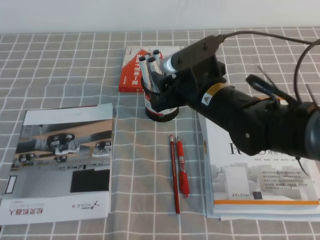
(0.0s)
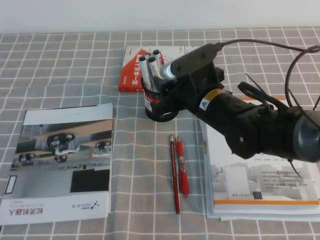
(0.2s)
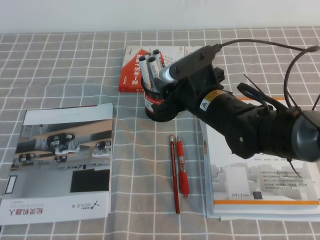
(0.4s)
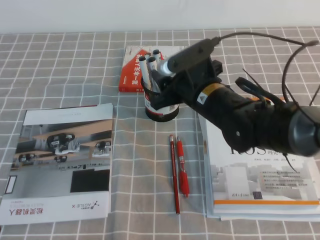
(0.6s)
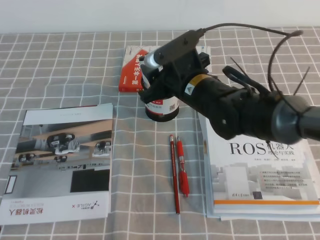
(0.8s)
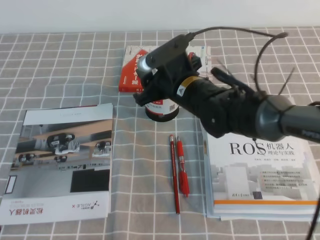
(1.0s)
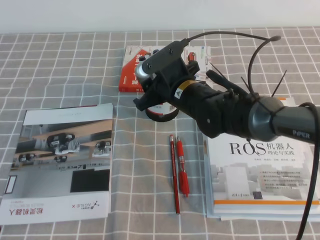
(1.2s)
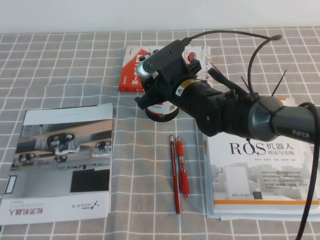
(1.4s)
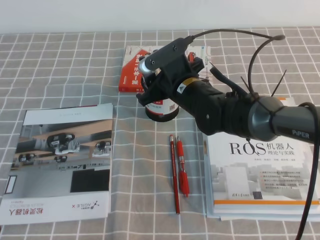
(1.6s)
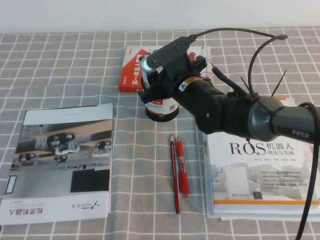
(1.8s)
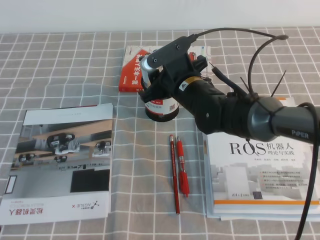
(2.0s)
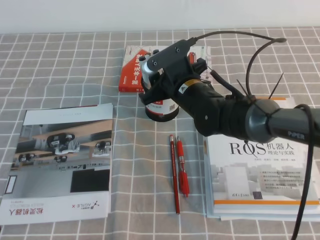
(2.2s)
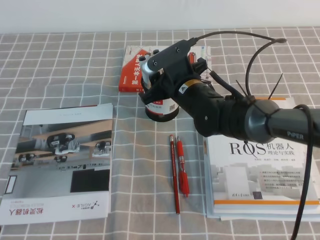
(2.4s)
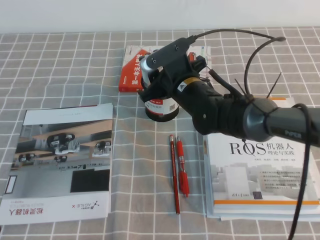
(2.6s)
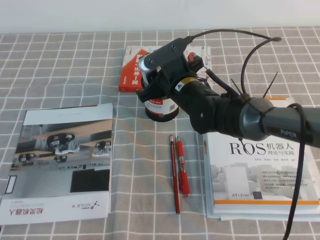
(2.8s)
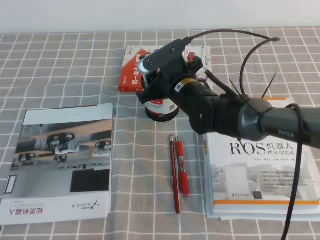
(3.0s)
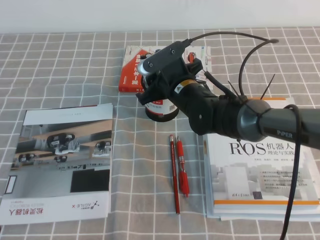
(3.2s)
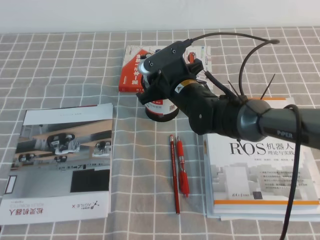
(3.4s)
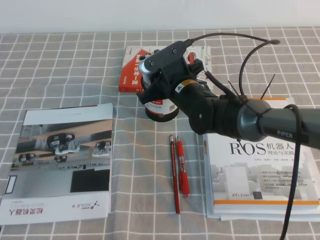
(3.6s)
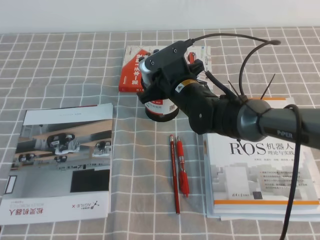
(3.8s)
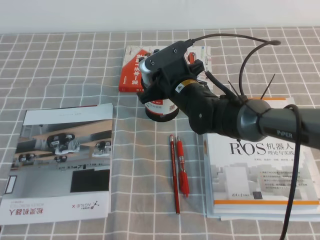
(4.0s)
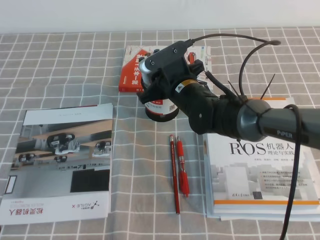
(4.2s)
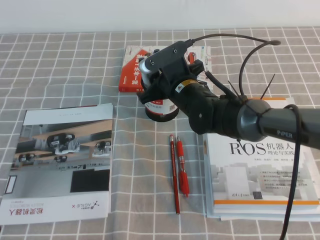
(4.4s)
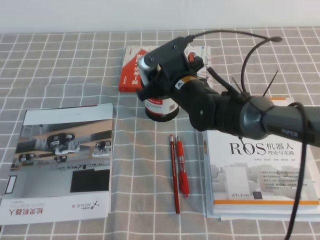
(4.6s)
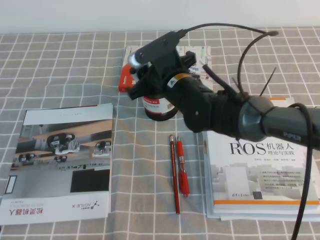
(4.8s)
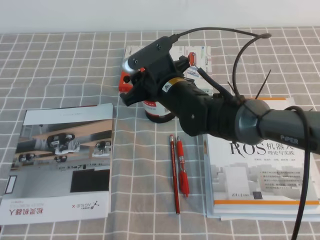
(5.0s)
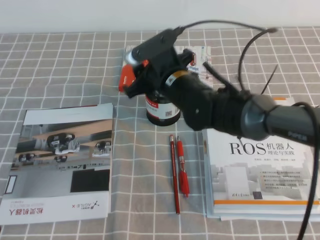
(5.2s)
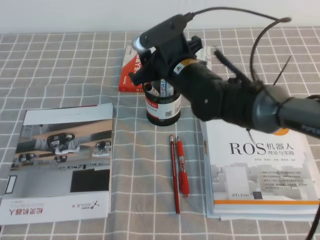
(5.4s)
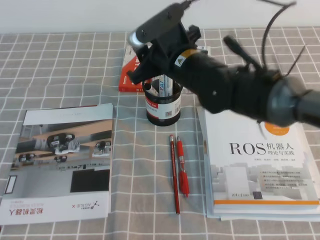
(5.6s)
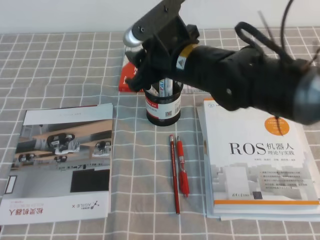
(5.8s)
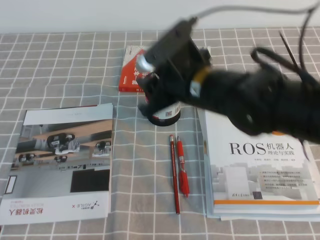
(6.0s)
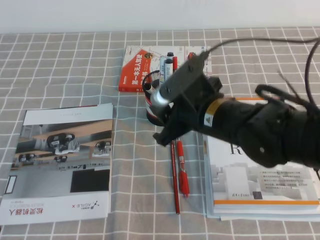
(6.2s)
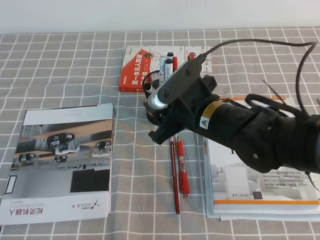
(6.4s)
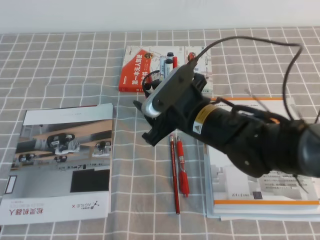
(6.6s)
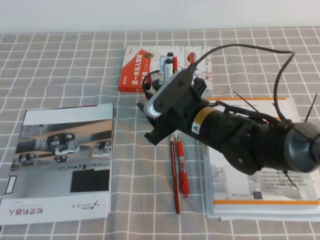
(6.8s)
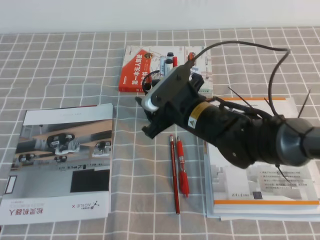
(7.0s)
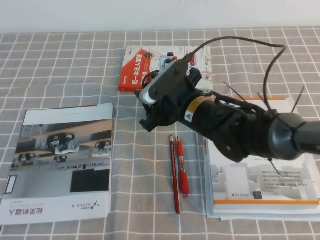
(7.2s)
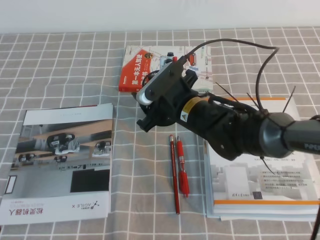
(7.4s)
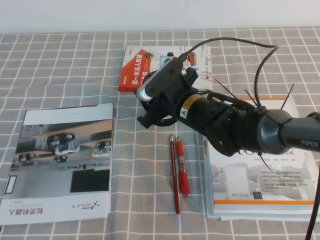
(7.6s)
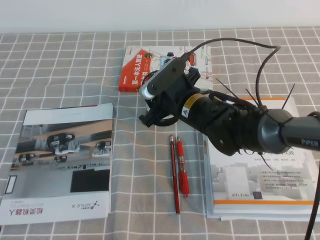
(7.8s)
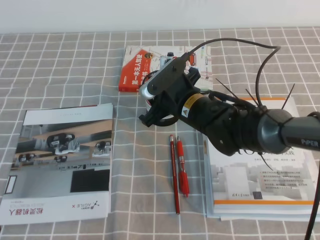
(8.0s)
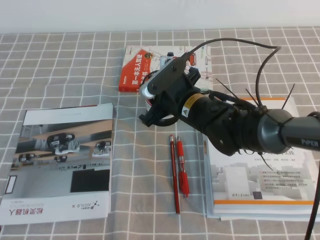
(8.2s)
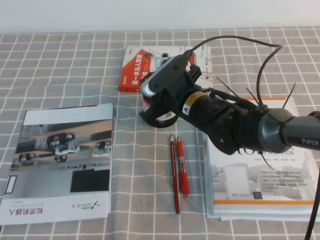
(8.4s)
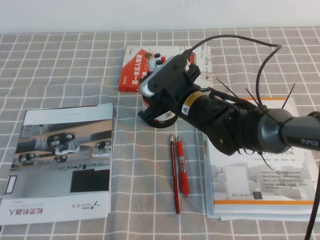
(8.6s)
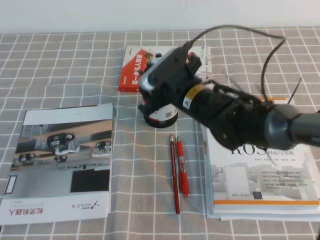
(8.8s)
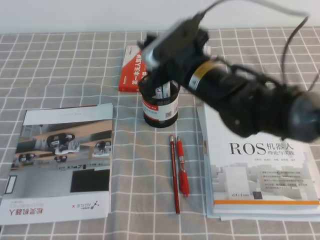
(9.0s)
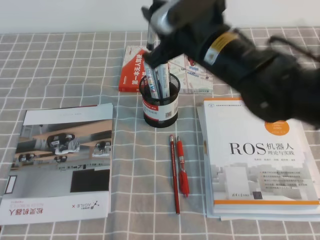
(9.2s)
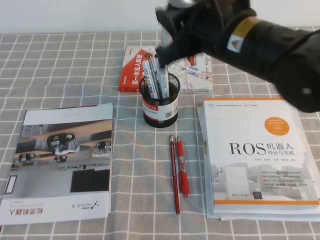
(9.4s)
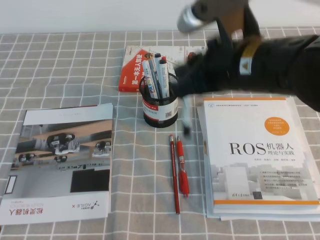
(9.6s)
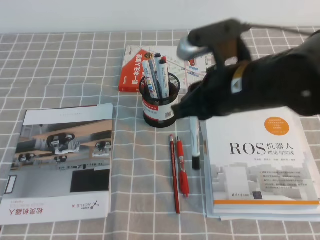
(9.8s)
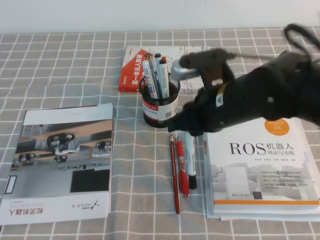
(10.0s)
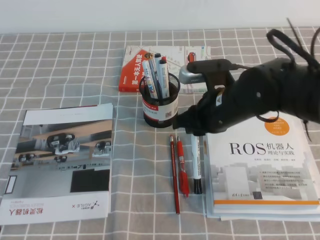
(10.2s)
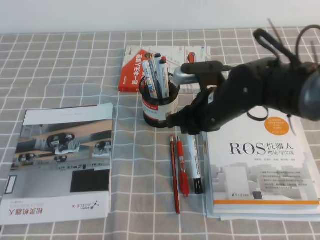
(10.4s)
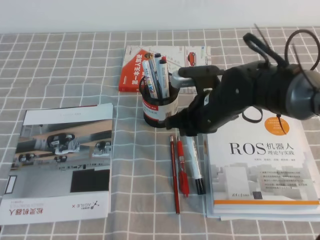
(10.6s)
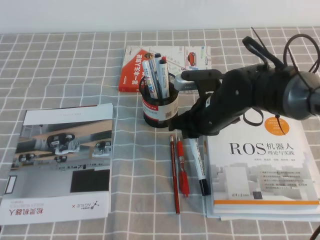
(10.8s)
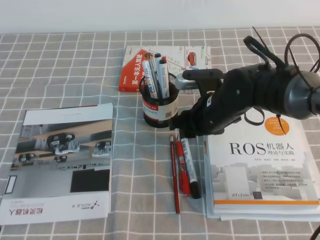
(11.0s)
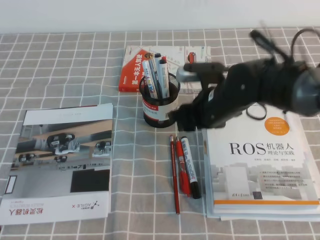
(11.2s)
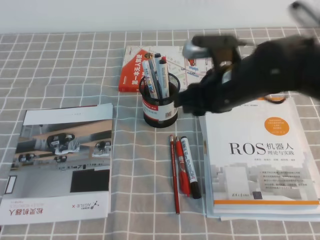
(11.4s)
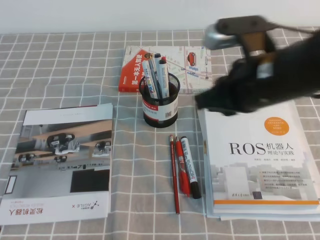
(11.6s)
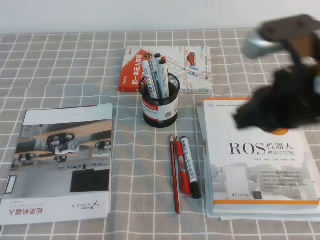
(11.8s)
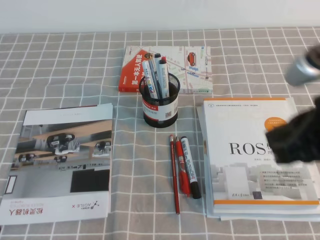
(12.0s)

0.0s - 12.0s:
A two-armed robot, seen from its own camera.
0.0s - 1.6s: The right gripper travels forward by about 5 cm.
1.6s - 3.0s: The grippers stay close to where they were, moving slightly.
3.0s - 4.4s: Both grippers stay about where they are.
4.4s - 6.0s: The right gripper shifts about 10 cm backward and upward.
6.0s - 7.6s: The right gripper travels downward by approximately 10 cm.
7.6s - 9.0s: The right gripper heads upward, covering about 10 cm, and closes.
10.4s - 12.0s: The right gripper shifts approximately 20 cm backward, upward and to the right, and opens, then closes once more.

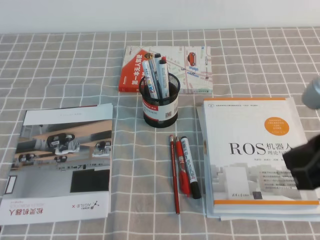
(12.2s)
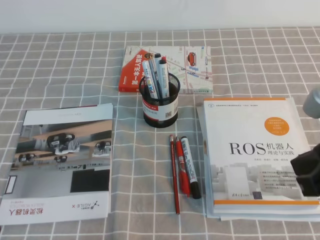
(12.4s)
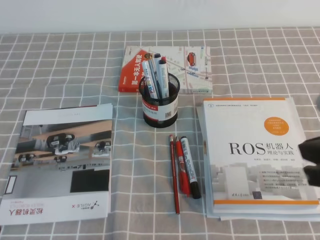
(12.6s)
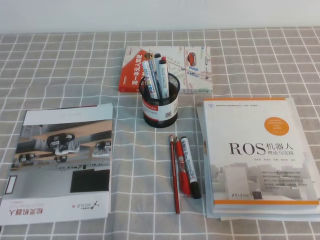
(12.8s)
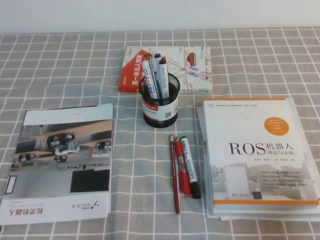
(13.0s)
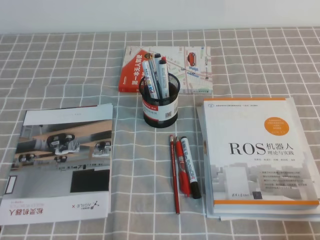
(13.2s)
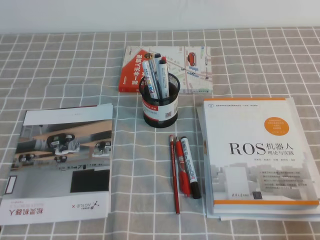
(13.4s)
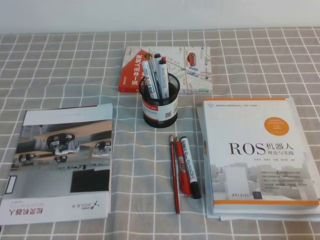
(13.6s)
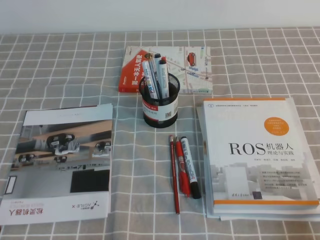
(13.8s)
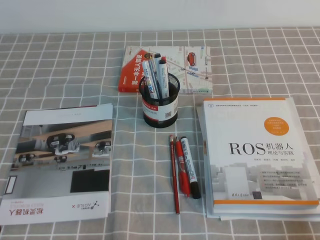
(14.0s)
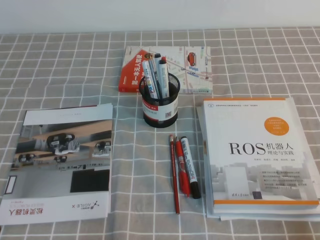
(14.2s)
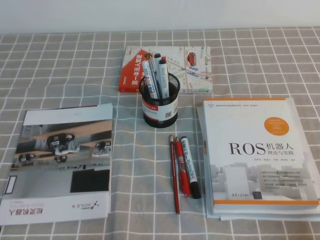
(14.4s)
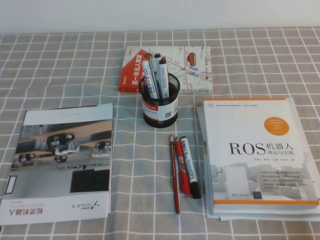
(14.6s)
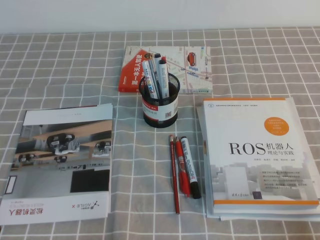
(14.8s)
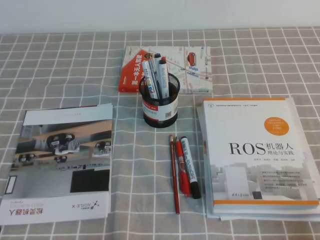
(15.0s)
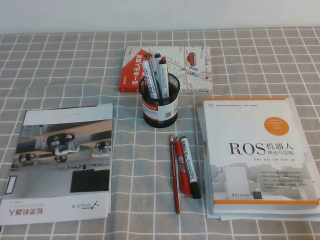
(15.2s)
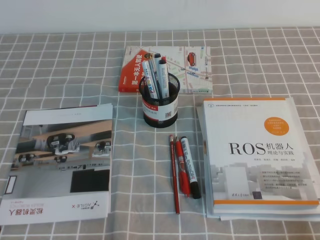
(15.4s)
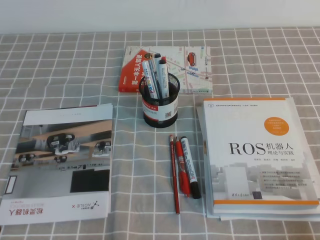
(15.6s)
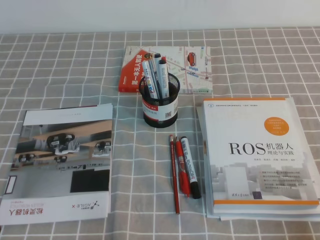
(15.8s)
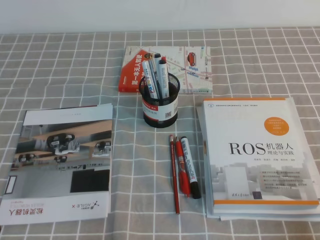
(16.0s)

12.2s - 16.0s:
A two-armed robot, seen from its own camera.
Step, 12.2s - 16.0s: Pick up the pen from the pen holder.
12.2s - 13.4s: The right gripper goes some 20 cm downward, to the right and backward.
14.8s - 16.0s: Both grippers stay about where they are.
